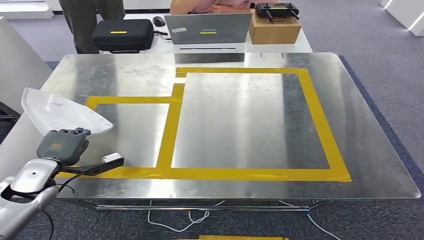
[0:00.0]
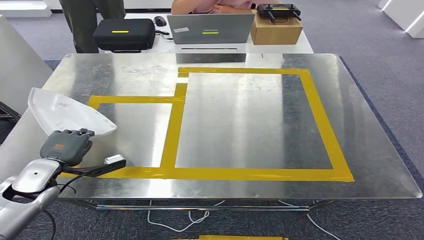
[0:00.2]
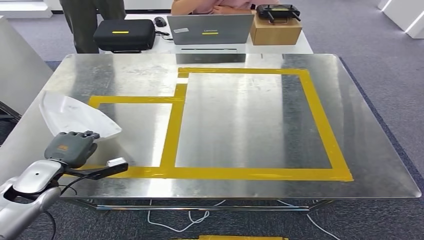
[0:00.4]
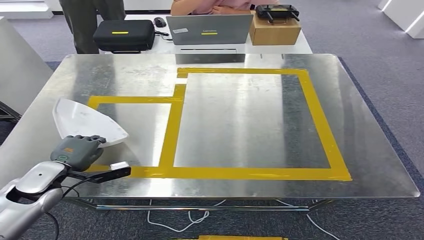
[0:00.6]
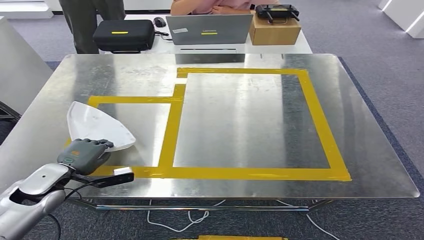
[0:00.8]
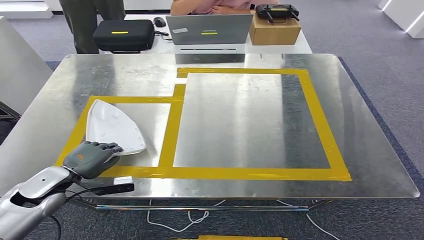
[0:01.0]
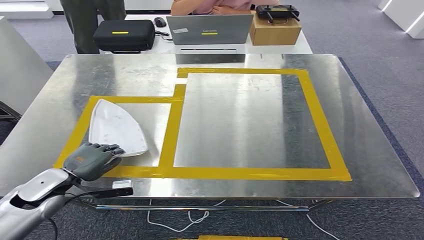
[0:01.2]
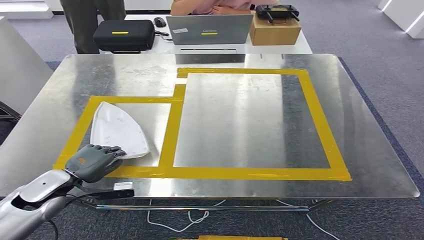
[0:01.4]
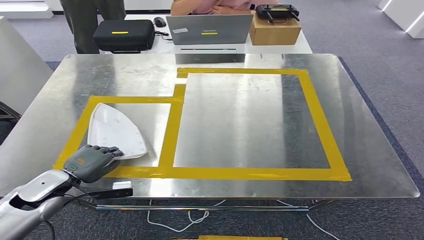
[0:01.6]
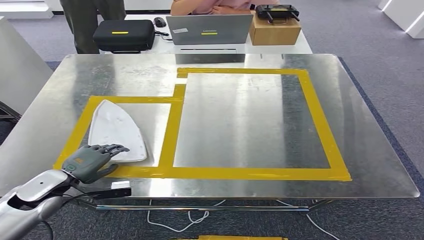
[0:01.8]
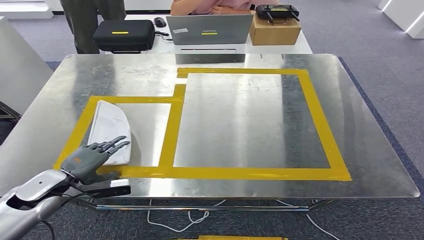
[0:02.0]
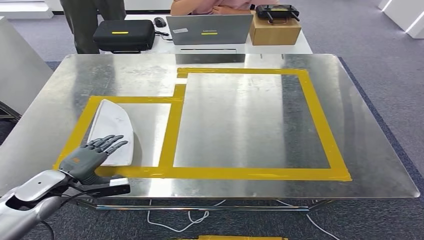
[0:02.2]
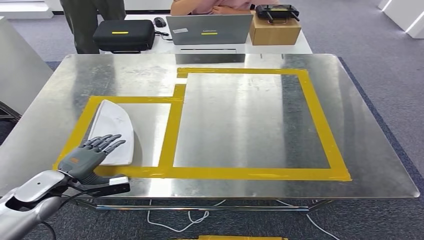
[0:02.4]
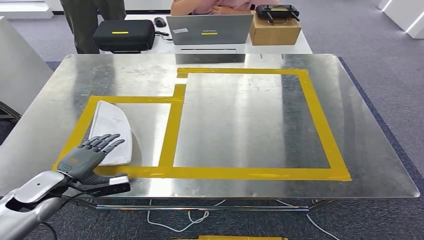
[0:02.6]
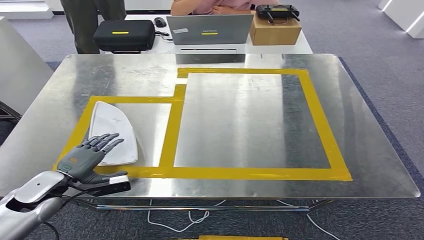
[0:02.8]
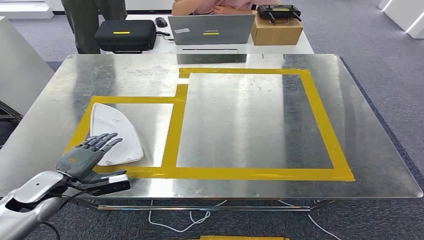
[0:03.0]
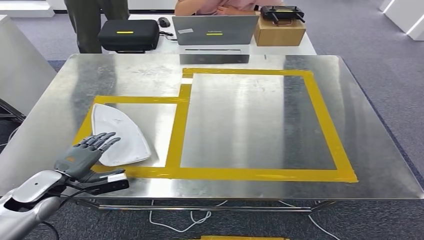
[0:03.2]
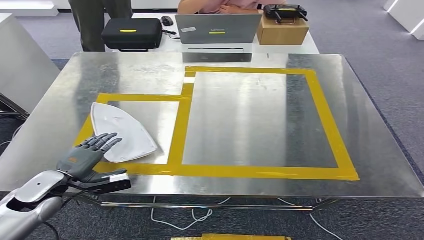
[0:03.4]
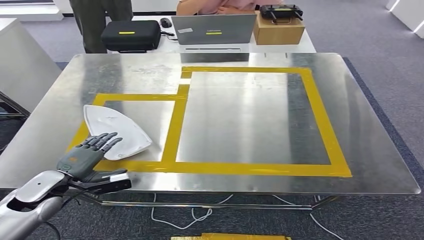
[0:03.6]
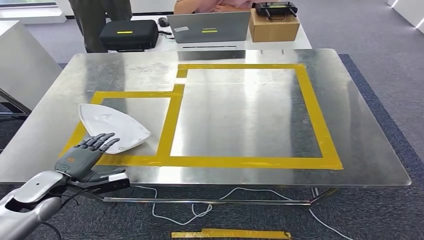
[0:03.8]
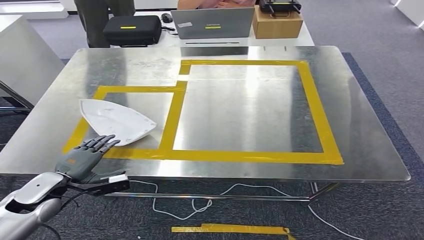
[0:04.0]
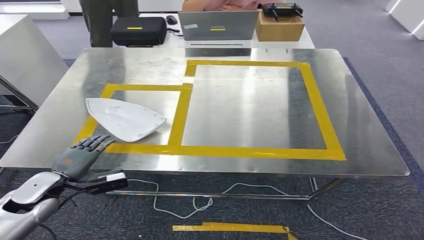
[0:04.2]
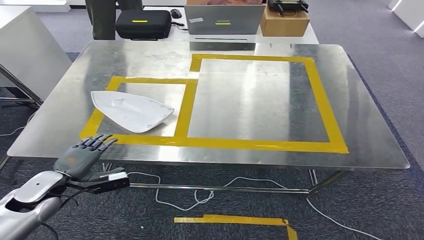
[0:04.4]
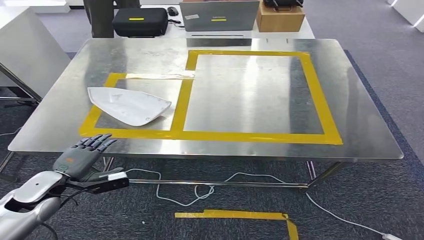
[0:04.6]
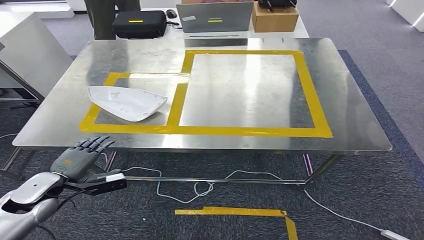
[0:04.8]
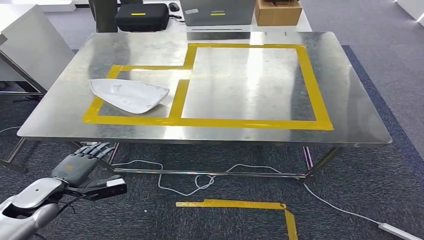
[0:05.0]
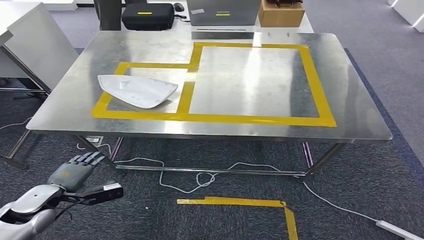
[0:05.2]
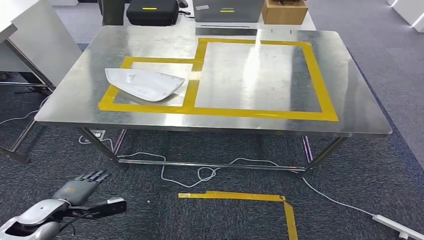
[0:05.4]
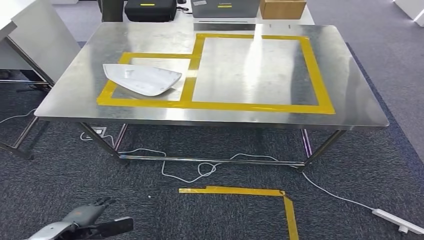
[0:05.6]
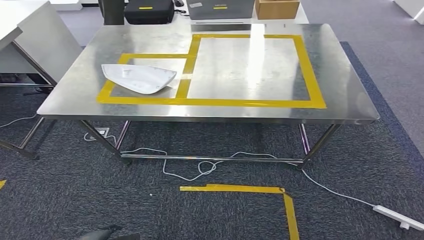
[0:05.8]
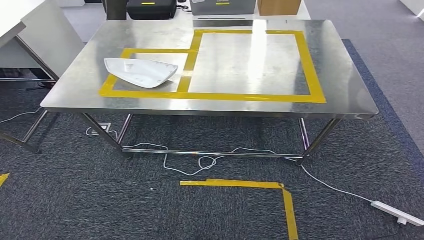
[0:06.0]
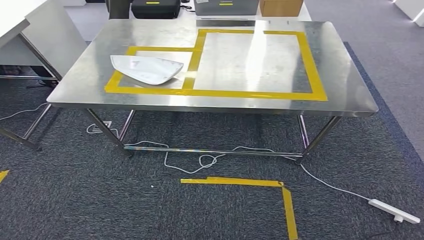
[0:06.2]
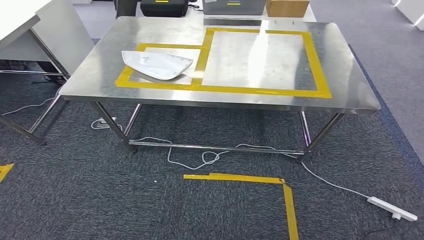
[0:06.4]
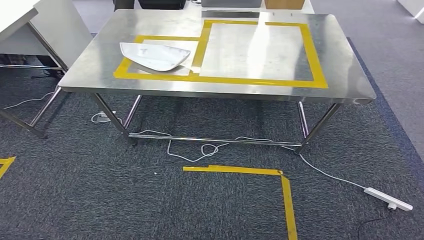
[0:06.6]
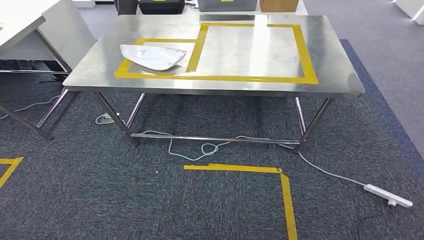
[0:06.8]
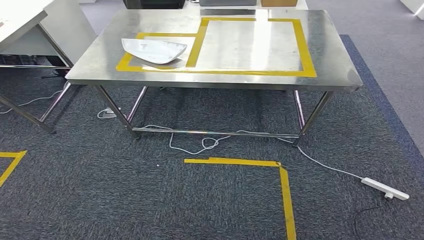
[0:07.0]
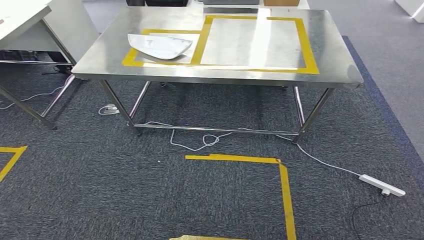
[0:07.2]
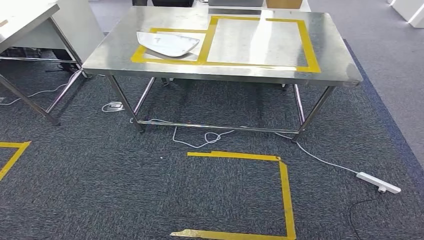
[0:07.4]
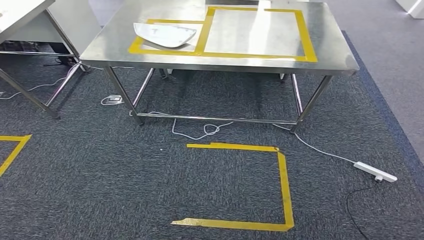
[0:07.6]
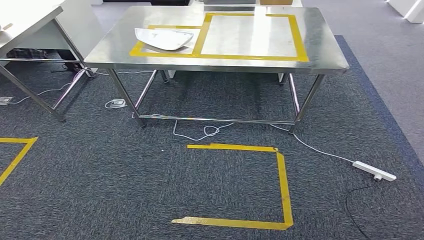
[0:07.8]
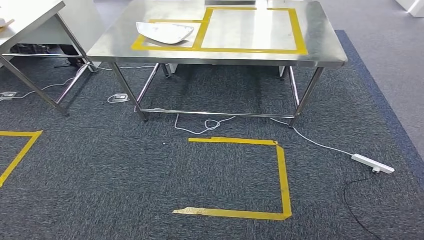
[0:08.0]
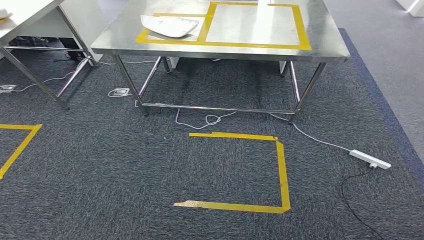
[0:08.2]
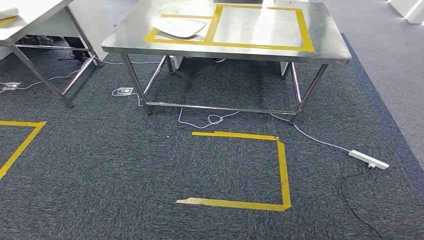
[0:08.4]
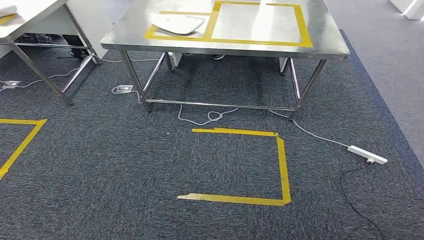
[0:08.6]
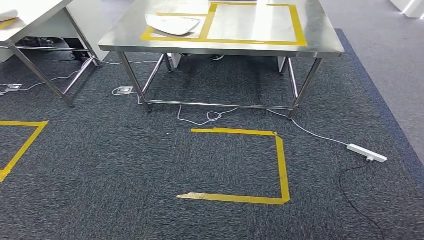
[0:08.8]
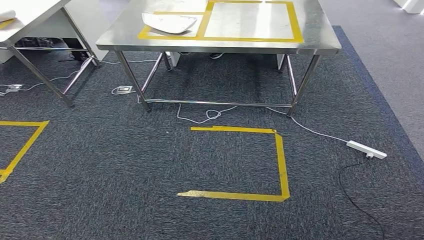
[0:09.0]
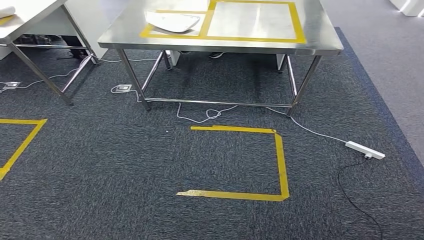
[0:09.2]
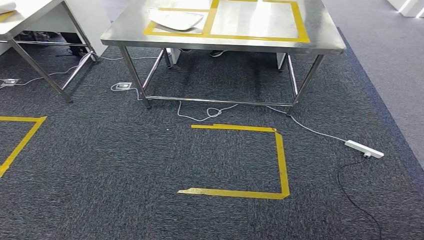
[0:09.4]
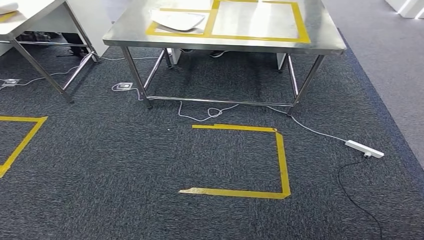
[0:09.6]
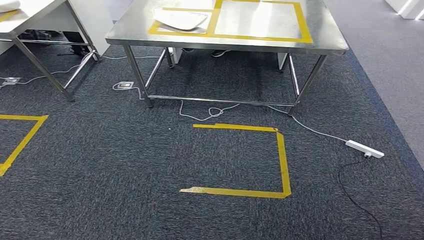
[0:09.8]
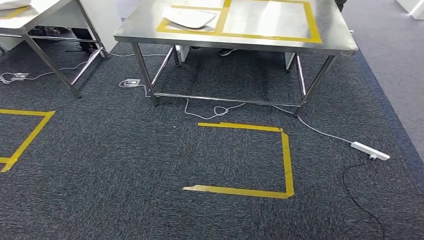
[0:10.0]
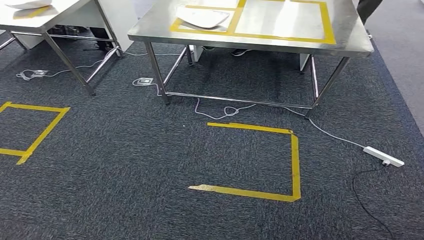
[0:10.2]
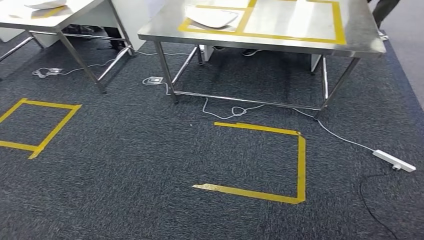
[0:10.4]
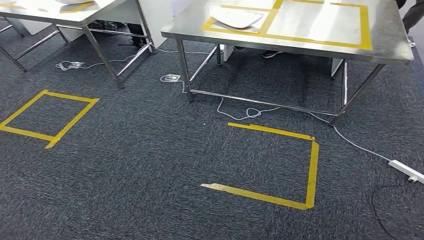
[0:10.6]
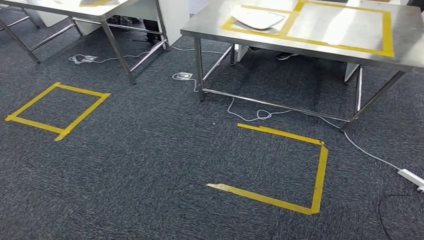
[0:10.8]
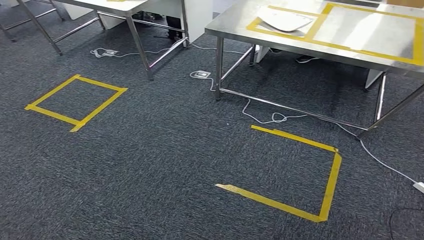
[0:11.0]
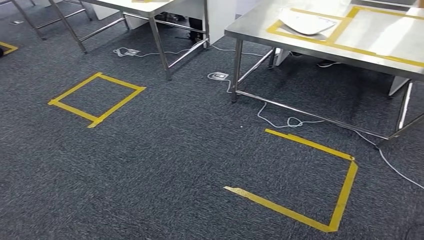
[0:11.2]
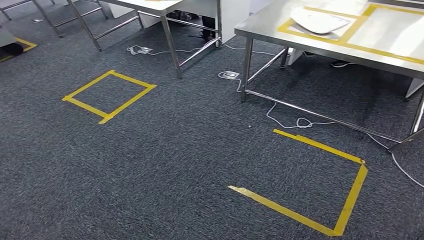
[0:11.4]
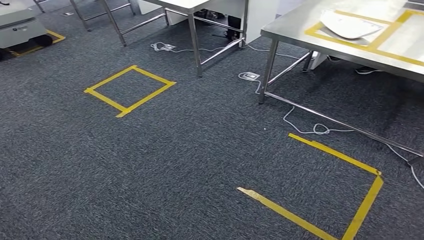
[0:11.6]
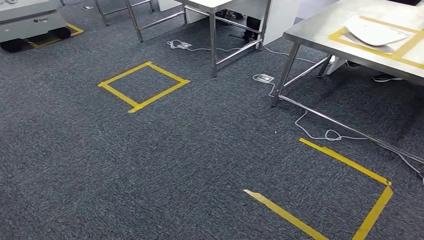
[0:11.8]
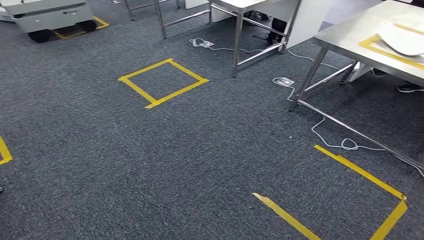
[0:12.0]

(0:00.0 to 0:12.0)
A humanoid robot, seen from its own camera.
Step, 0:00.0 - 0:08.8: Insert the small component into the corresponding slot on the workbench.
0:01.6 - 0:03.0: The hands move only a little.

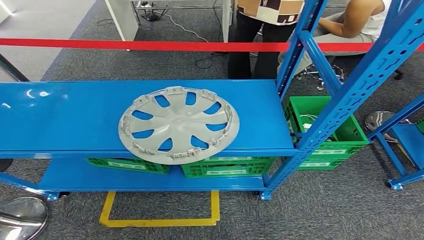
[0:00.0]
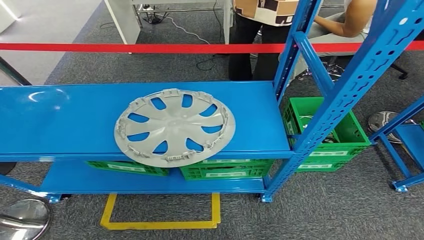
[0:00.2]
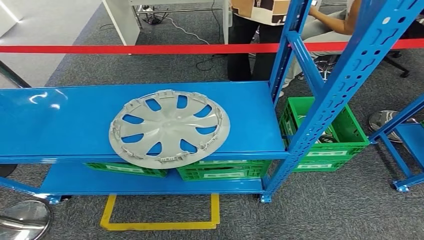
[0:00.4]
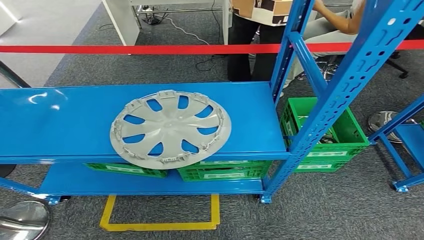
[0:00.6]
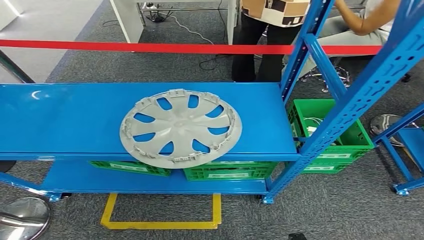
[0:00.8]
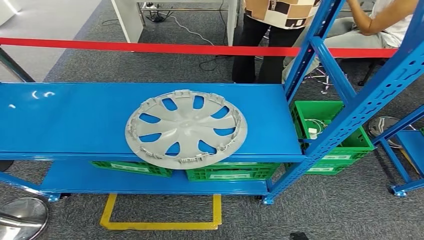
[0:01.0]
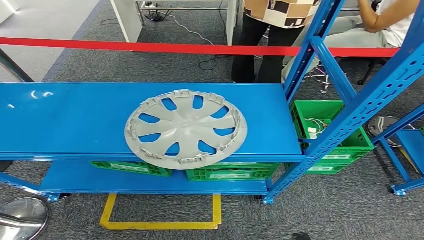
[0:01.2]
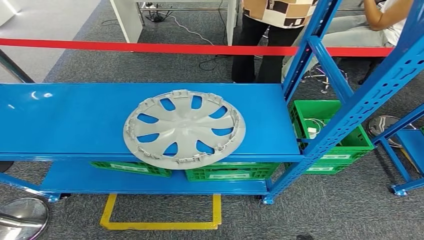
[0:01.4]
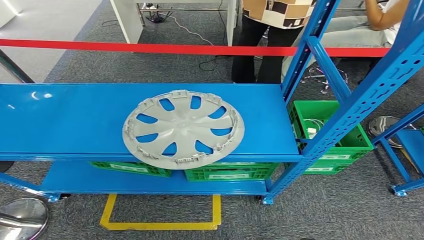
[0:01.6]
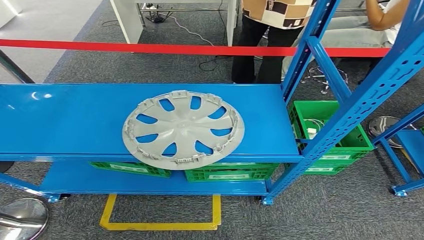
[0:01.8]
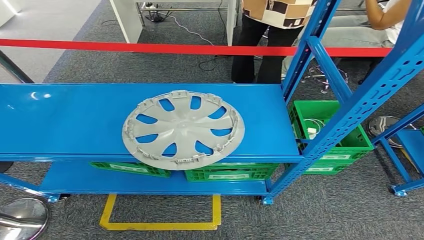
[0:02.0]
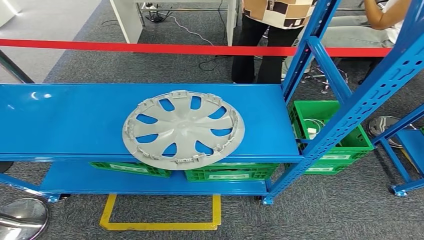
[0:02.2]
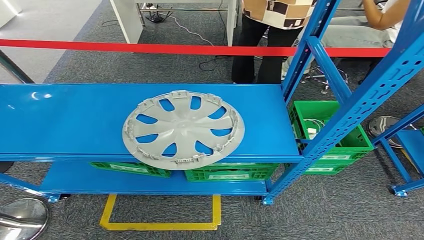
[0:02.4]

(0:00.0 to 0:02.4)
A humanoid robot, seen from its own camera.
Step, 0:00.0 - 0:02.4: Return to the initial position at the workbench.
0:01.2 - 0:02.4: The hands make only small movements.
